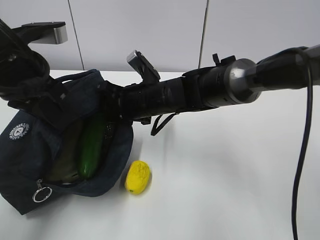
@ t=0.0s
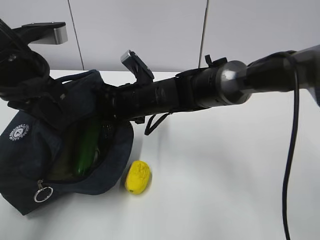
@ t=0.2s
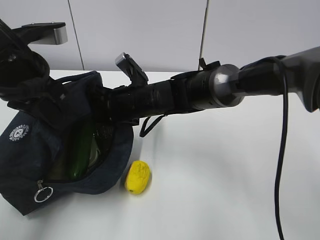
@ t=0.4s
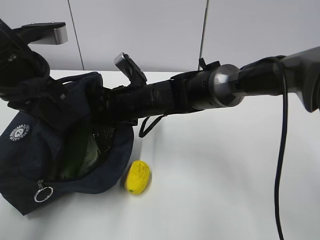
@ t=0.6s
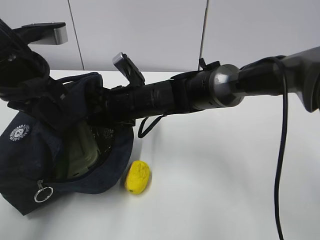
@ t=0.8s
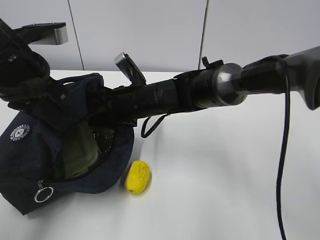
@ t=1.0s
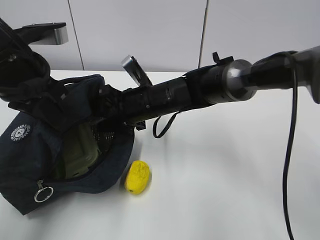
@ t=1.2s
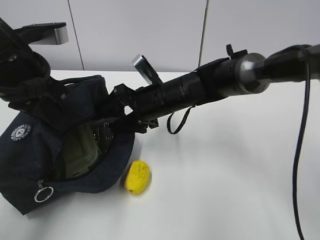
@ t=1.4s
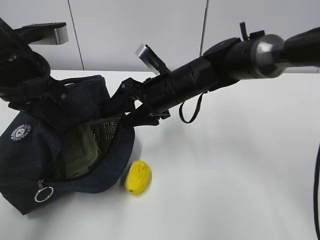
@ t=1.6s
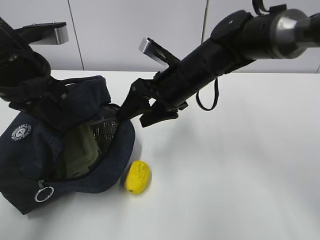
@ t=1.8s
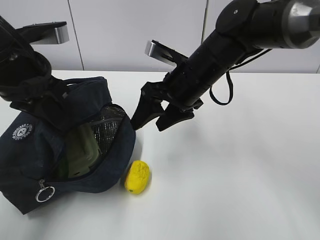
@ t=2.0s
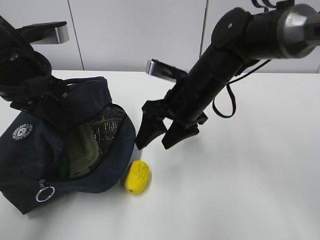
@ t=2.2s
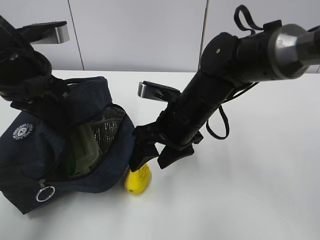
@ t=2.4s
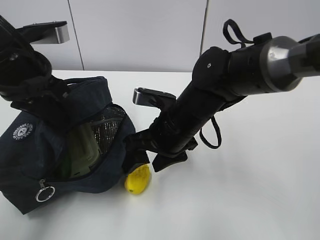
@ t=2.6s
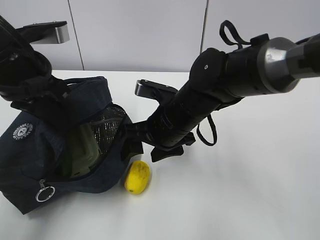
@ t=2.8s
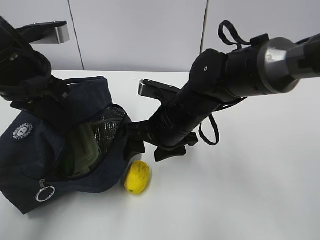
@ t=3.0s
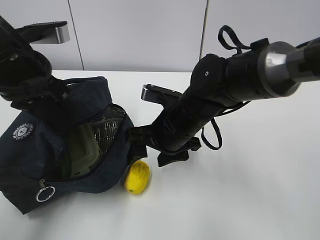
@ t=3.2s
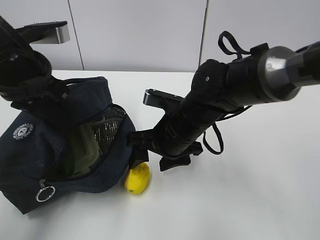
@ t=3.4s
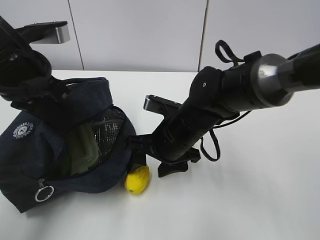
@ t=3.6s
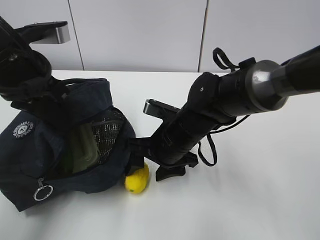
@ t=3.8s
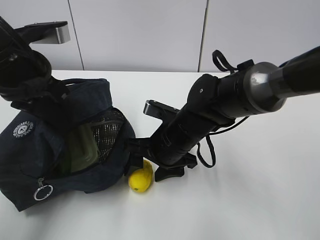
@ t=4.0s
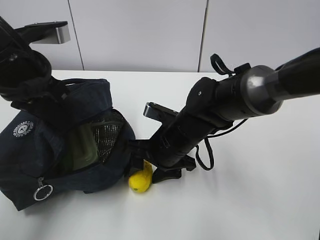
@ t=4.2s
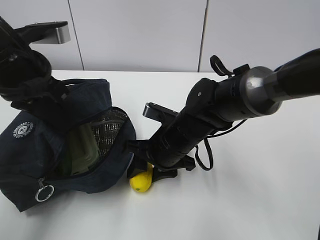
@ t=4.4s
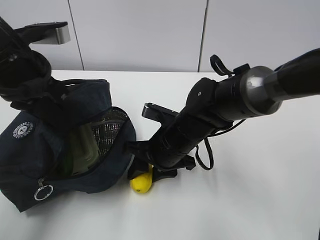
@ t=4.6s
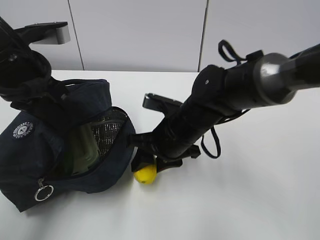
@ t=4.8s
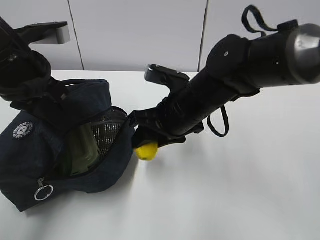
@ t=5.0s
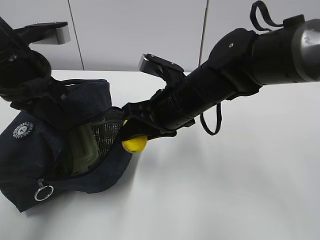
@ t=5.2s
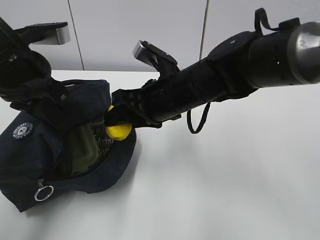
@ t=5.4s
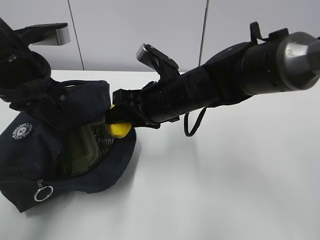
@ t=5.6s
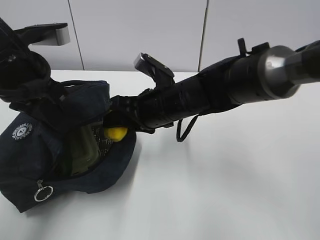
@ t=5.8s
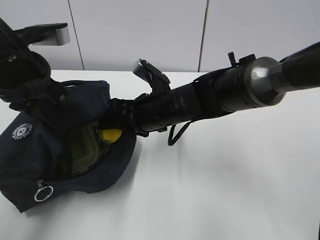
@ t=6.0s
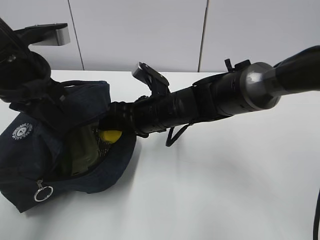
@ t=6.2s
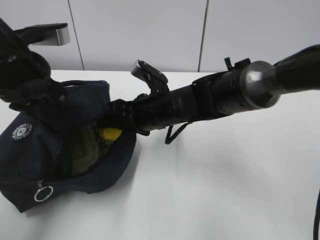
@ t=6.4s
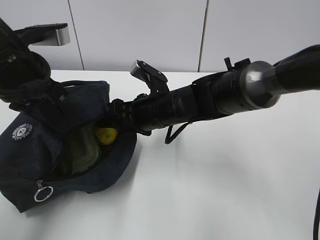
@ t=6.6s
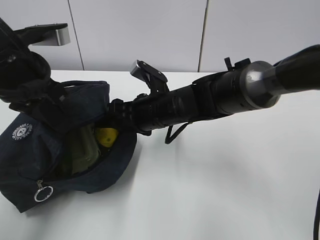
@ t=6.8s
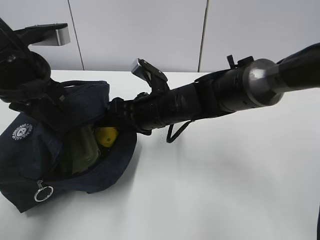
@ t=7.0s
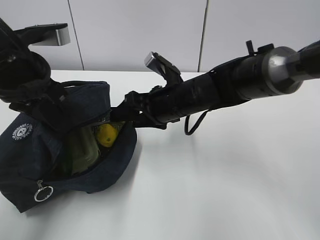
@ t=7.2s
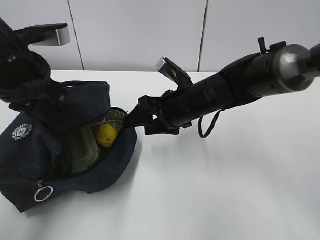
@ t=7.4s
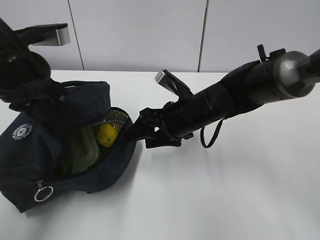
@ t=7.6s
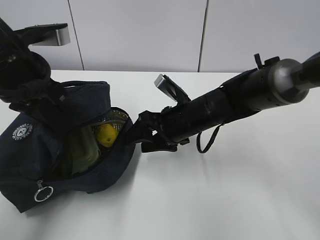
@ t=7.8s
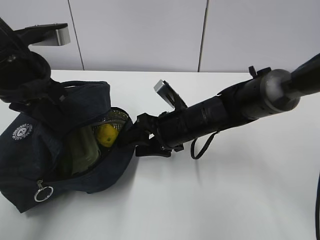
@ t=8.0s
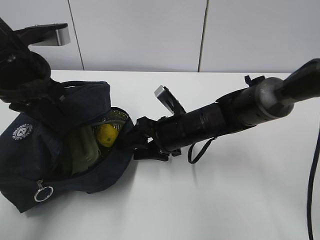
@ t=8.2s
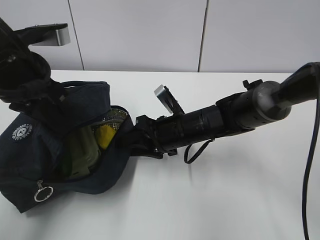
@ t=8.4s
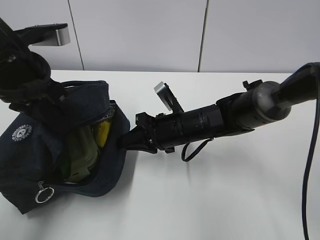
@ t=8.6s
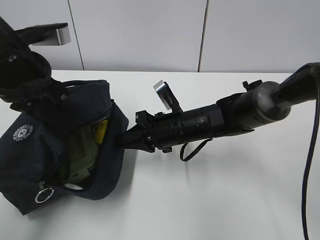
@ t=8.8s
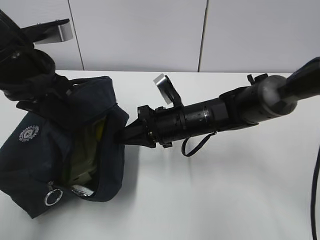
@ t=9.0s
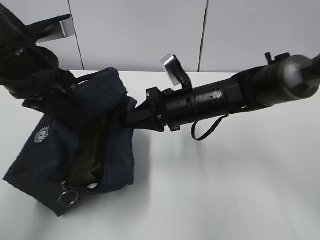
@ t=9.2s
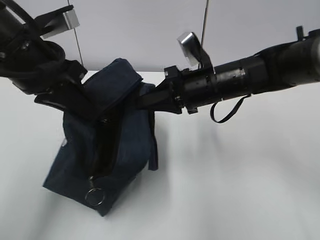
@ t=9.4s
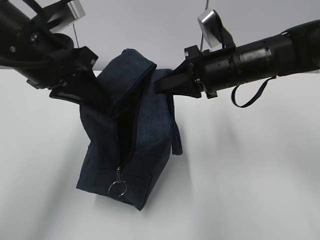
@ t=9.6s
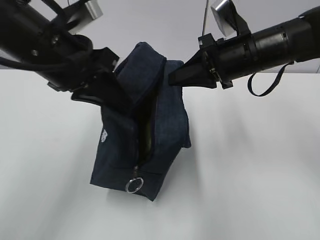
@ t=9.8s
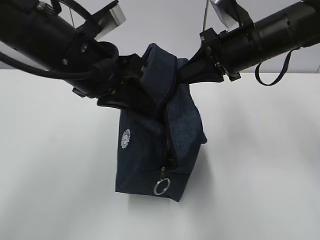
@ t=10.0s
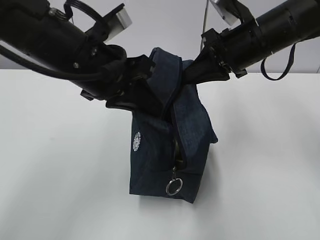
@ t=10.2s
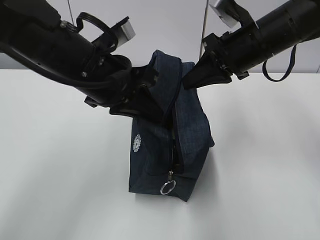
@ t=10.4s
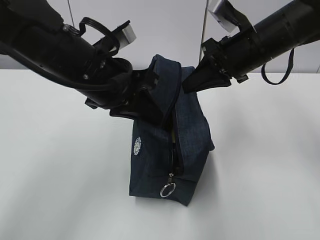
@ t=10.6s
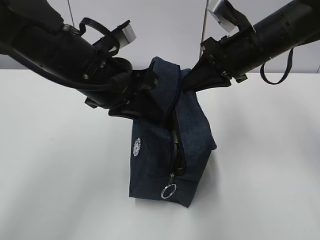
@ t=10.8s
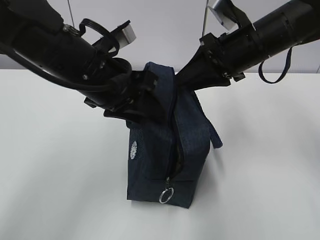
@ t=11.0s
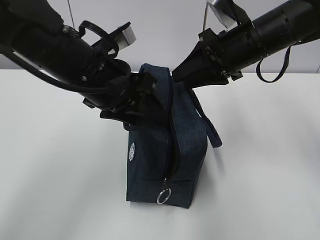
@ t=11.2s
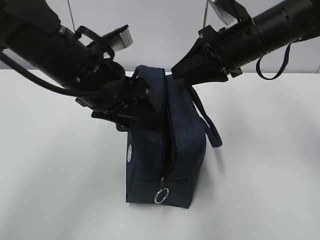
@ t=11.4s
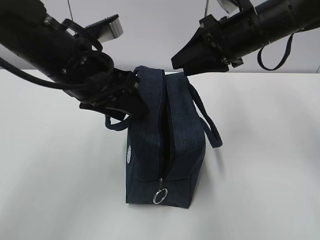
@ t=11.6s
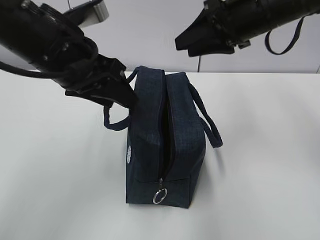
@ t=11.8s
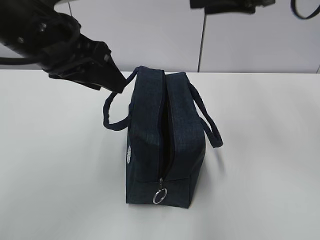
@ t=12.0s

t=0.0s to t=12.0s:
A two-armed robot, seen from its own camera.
Step, t=1.6s to t=3.0s: Grab the lunch bag with your right hand.
Step, t=3.2s to t=5.4s: Stand the lunch bag upright with your right hand.
t=0.0s to t=1.6s: The right gripper moves approximately 5 cm, and opens up.
t=1.6s to t=3.0s: The right gripper goes some 5 cm backward.
t=3.0s to t=4.4s: The grippers make only small movements.
t=6.0s to t=7.6s: The right gripper is displaced to the right by approximately 5 cm, and opens its fingers.
t=7.6s to t=9.0s: The right gripper closes.
t=9.0s to t=10.4s: The left gripper moves to the right, approximately 10 cm. Meanwhile the right gripper goes some 20 cm upward and to the right.
t=10.4s to t=12.0s: The right gripper travels upward by roughly 10 cm, and opens its fingers. The left gripper is displaced upward by some 5 cm, and opens its fingers.

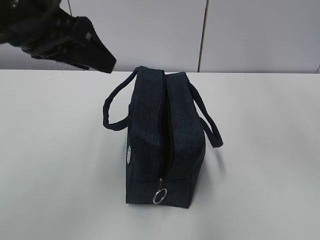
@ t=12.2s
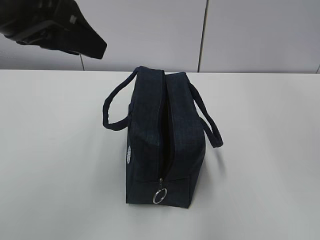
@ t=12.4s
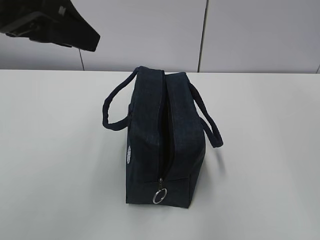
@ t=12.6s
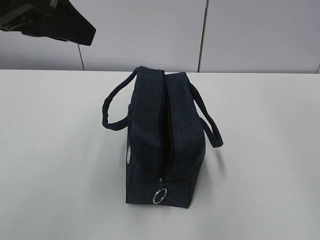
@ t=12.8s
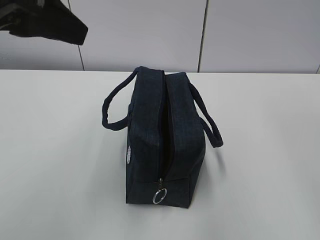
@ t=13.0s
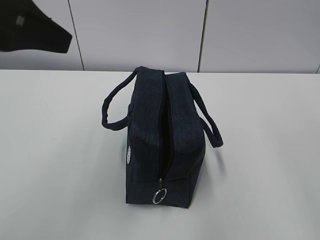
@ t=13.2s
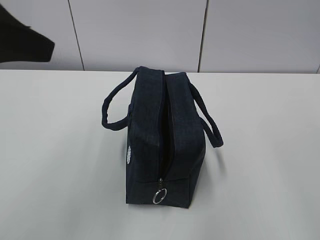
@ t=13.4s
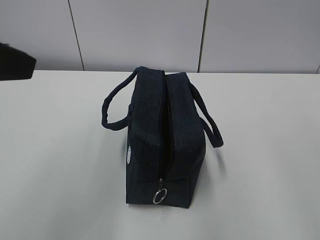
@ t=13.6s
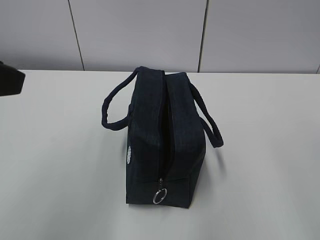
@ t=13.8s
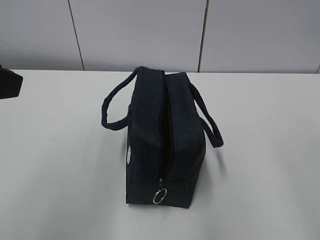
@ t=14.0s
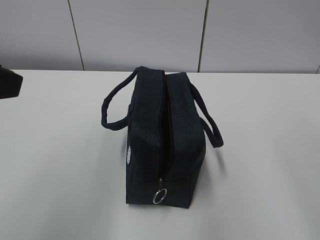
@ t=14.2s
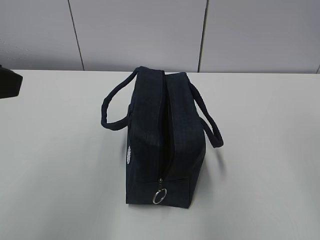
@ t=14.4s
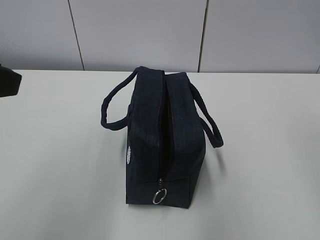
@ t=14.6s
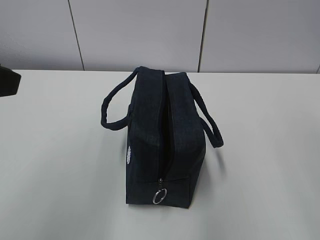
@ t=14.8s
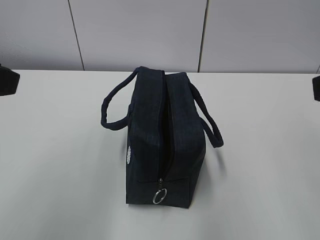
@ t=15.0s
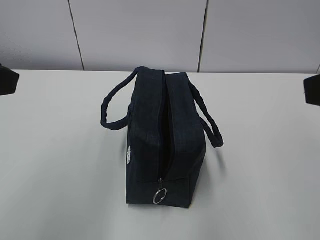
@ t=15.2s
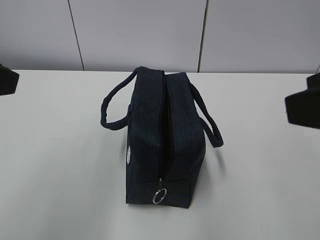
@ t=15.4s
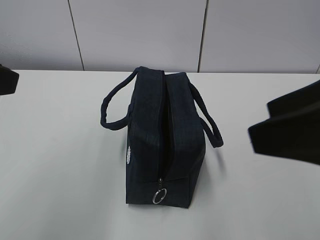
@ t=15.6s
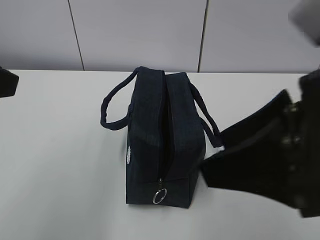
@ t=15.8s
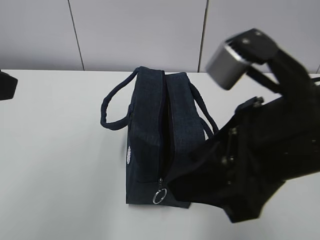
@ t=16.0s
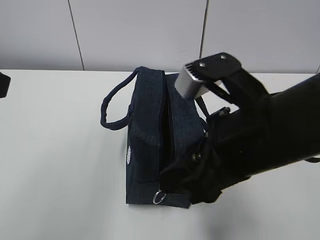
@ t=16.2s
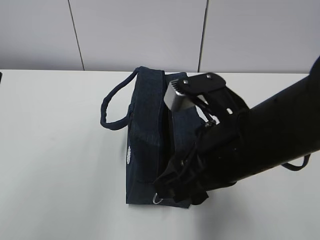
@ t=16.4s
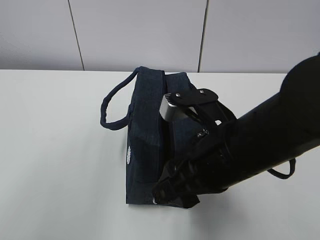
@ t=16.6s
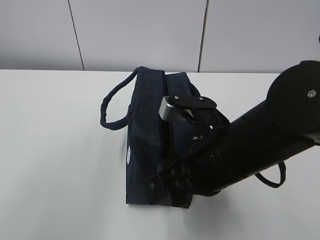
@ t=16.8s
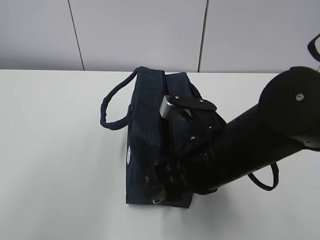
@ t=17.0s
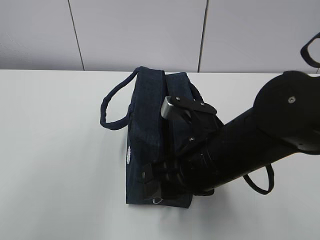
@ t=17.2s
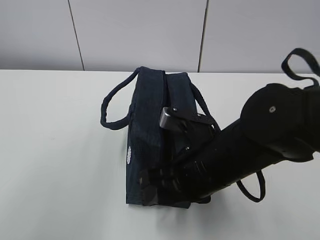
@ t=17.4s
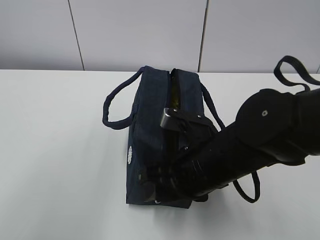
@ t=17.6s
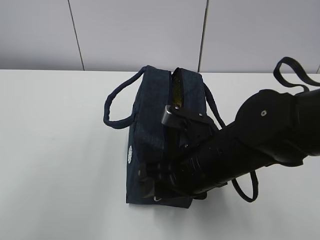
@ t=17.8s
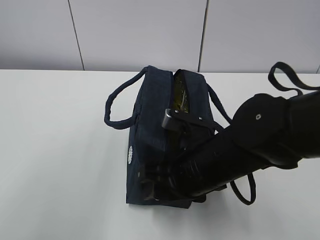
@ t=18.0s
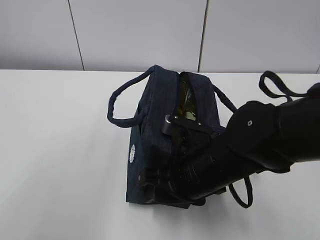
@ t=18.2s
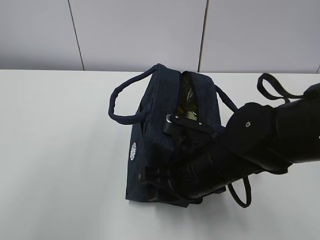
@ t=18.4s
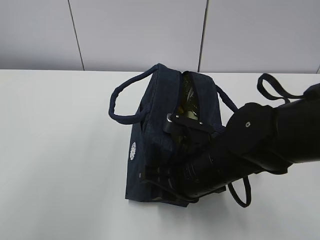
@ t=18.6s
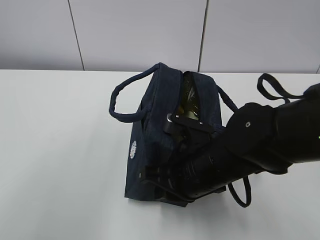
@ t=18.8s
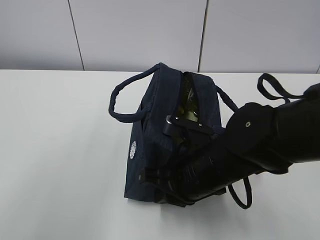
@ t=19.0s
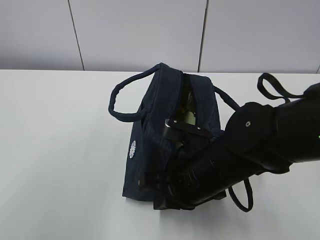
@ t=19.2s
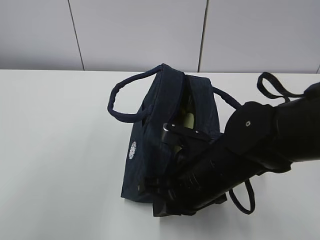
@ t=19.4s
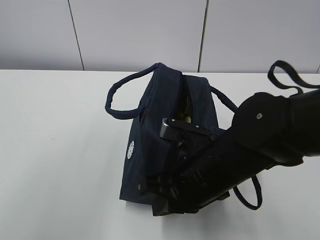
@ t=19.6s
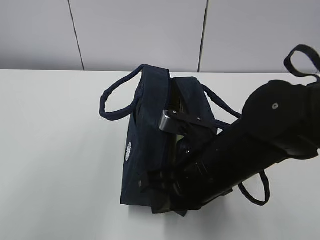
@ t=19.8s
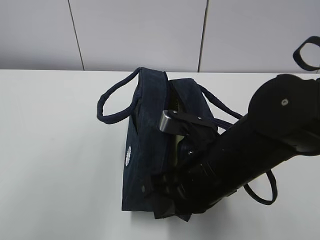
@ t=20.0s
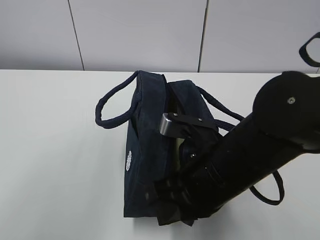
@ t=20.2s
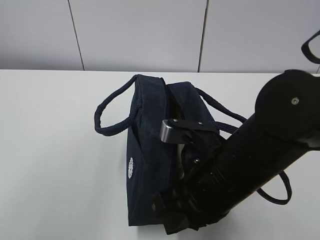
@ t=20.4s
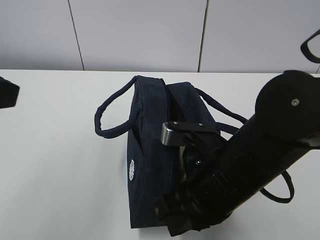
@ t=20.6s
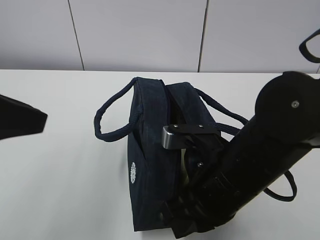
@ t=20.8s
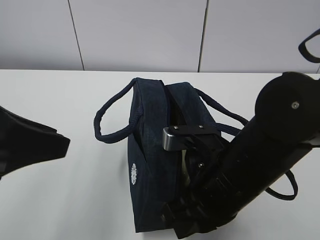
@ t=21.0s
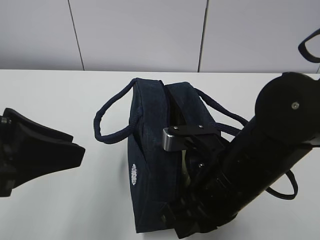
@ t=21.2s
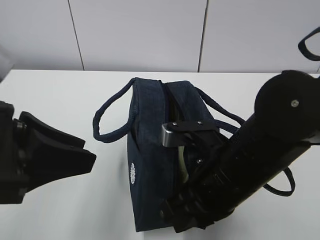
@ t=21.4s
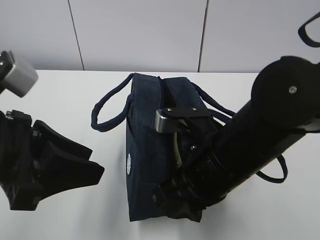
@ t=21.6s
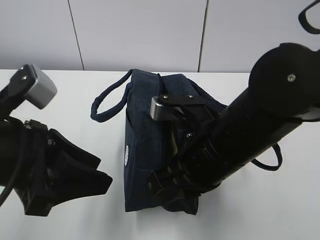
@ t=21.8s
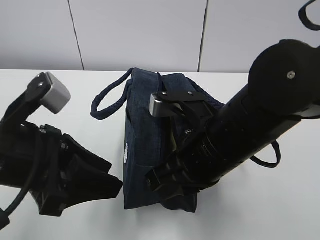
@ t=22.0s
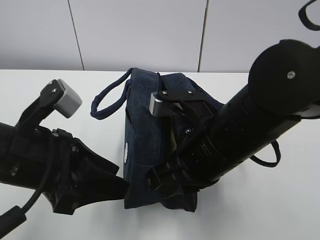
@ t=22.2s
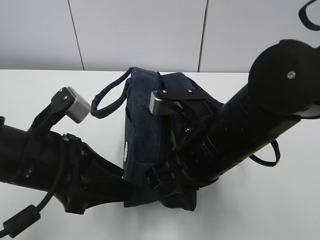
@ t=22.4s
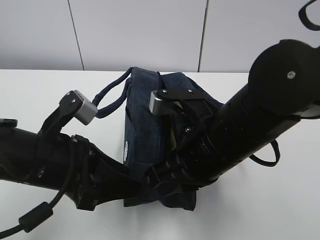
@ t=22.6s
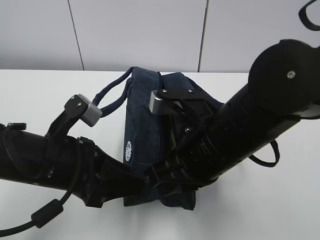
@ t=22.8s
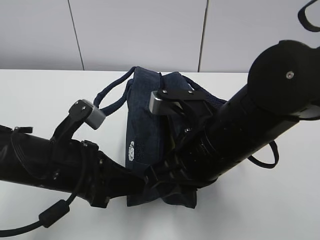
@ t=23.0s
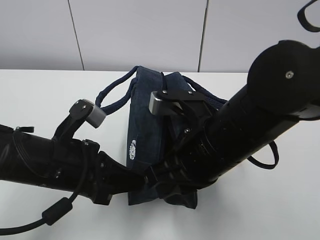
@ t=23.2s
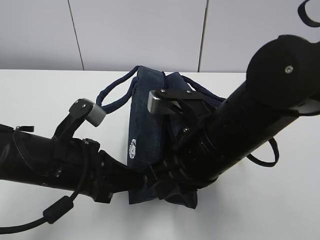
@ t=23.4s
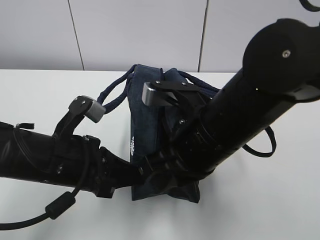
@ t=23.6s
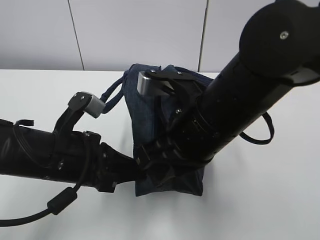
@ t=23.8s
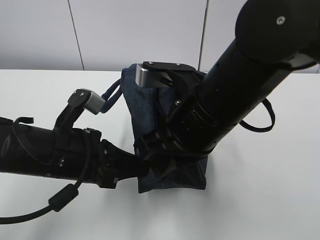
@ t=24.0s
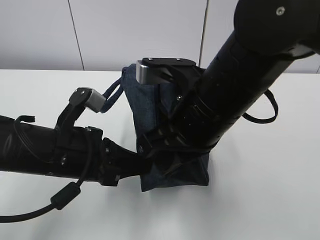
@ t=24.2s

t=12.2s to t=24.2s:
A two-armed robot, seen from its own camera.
t=12.2s to t=13.8s: The right gripper moves backward, approximately 20 cm. Meanwhile the left gripper heads backward and to the left, covering roughly 15 cm.
t=13.8s to t=15.2s: The right gripper opens its fingers.
t=15.2s to t=16.6s: The right gripper goes about 20 cm downward, to the left and forward.
t=16.6s to t=18.2s: The right gripper travels downward by about 10 cm.
t=18.2s to t=19.8s: The right gripper closes up.
t=19.8s to t=21.2s: The left gripper goes some 10 cm downward.
t=21.2s to t=22.6s: The left gripper shifts about 10 cm downward and forward.
t=22.6s to t=24.2s: The right gripper moves roughly 5 cm; the left gripper closes up.
